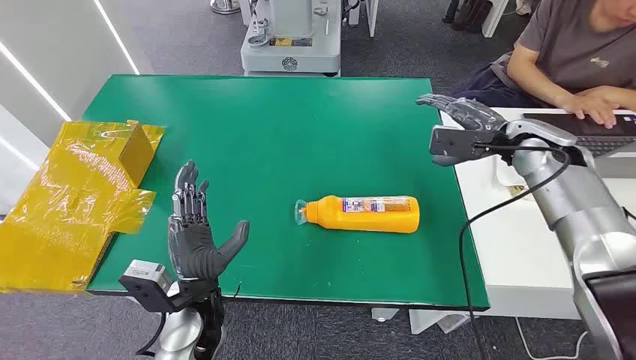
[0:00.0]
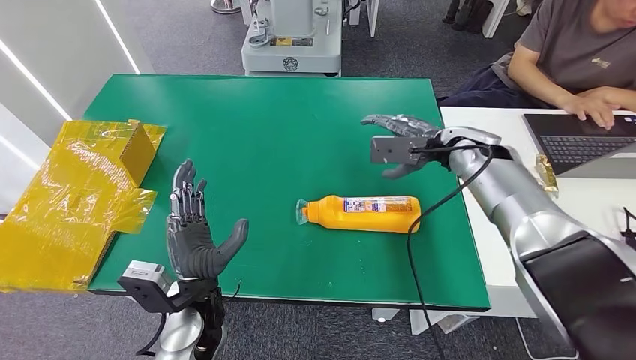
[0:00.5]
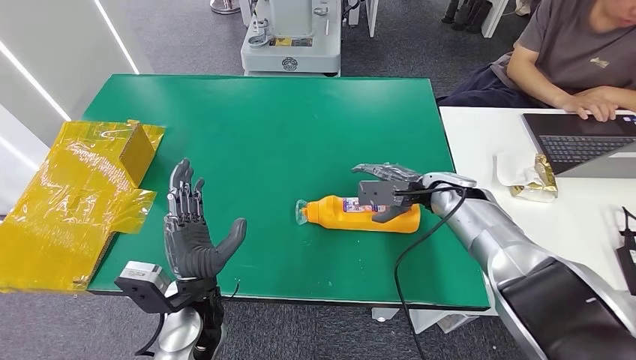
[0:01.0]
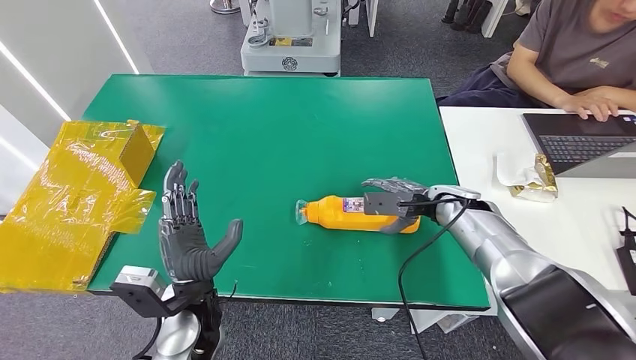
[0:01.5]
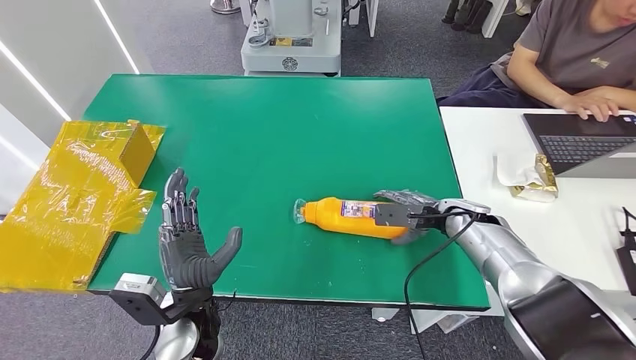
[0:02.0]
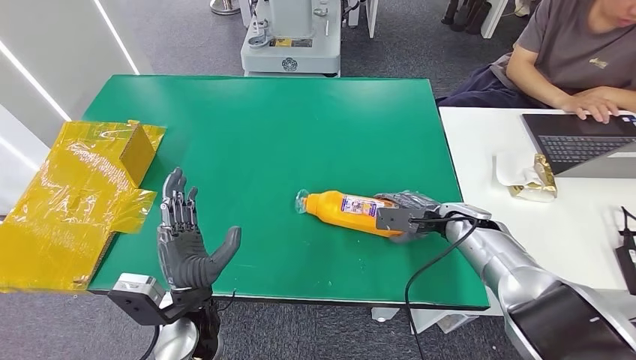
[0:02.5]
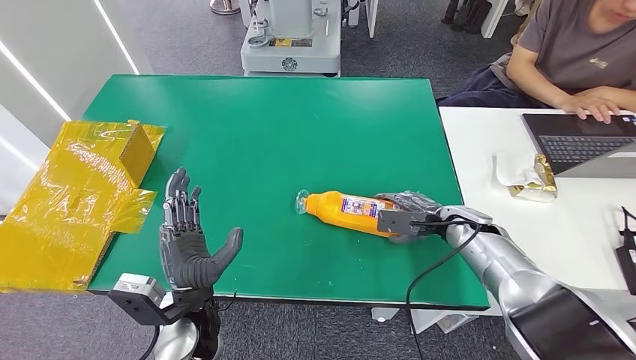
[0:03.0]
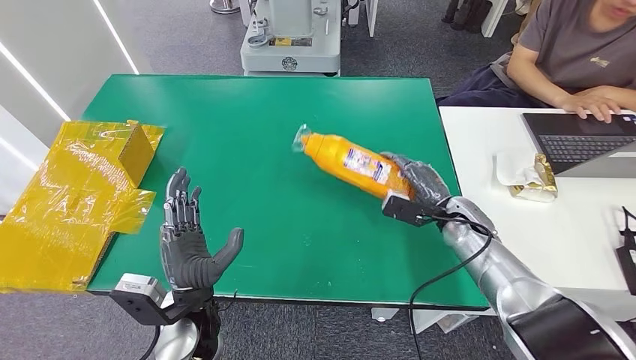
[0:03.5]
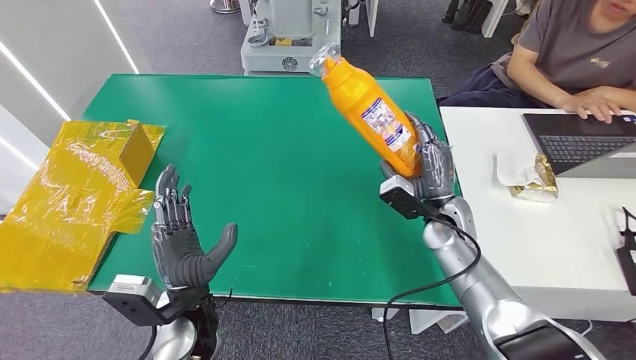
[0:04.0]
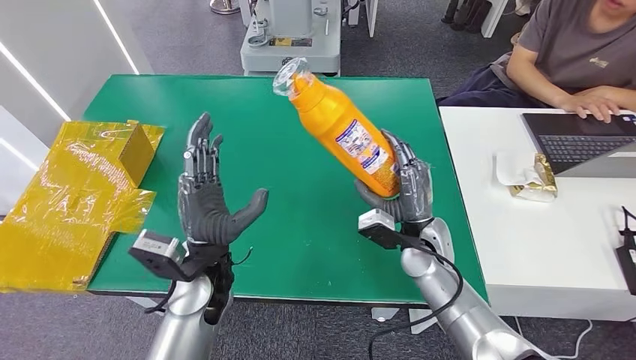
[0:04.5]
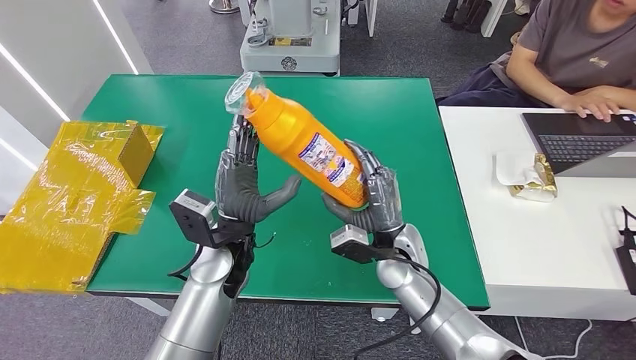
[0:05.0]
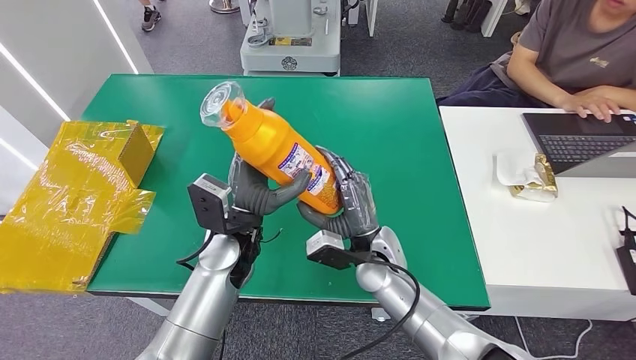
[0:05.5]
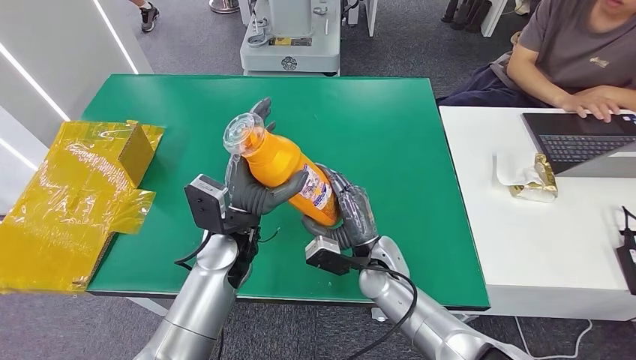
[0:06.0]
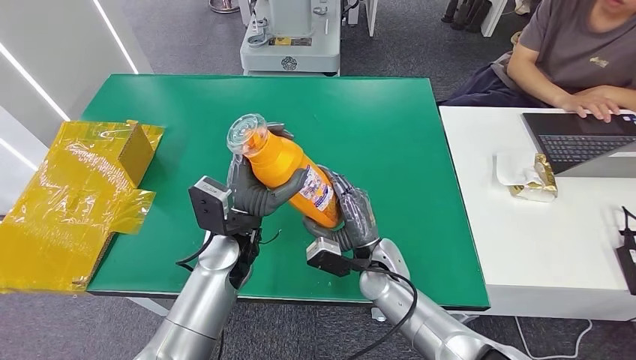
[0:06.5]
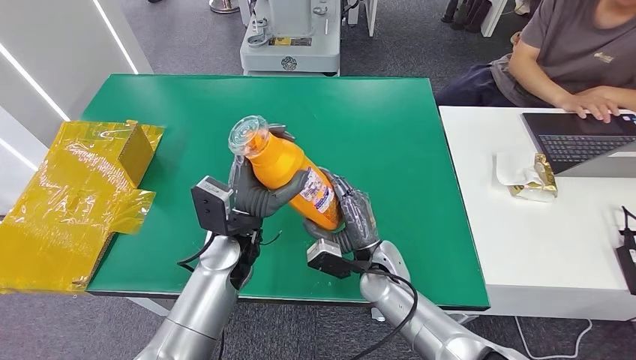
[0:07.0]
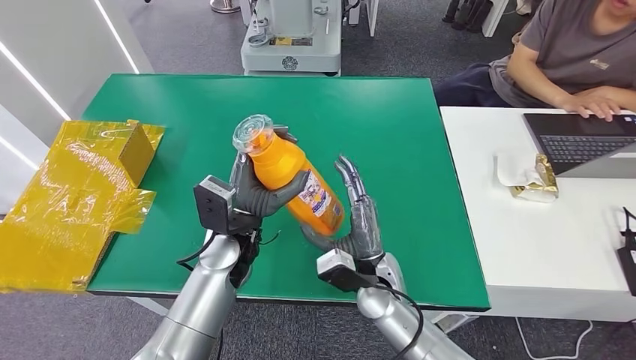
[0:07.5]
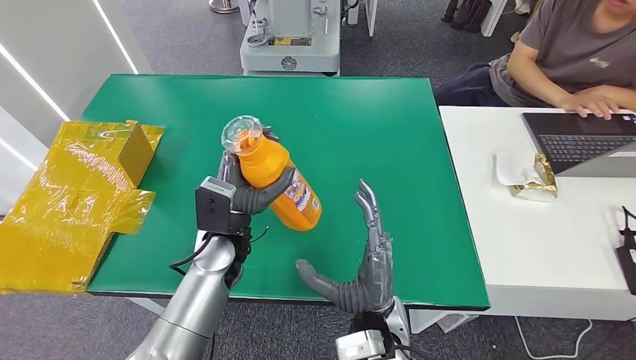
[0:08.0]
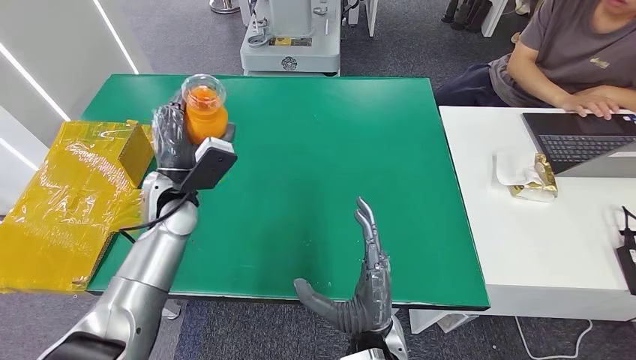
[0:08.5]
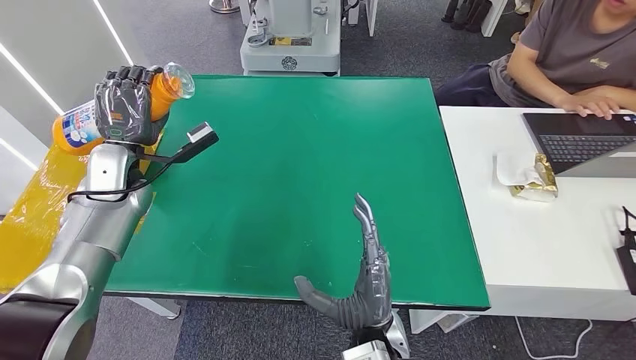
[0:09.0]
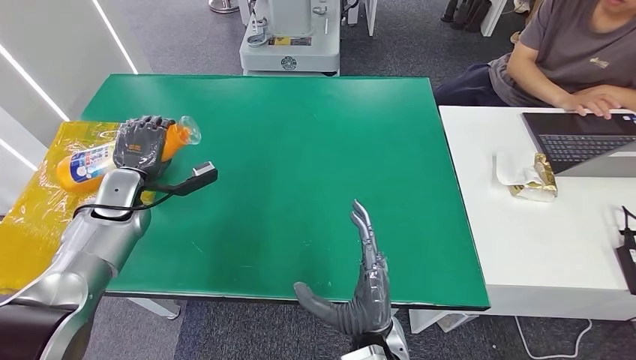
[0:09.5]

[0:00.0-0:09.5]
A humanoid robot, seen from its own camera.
Step, 0:00.0 to 0:03.5: Pick up the bottle from the table.
0:02.0 to 0:04.0: The right hand travels to the left by roughly 5 cm.
0:05.5 to 0:07.5: The hands make only small movements.

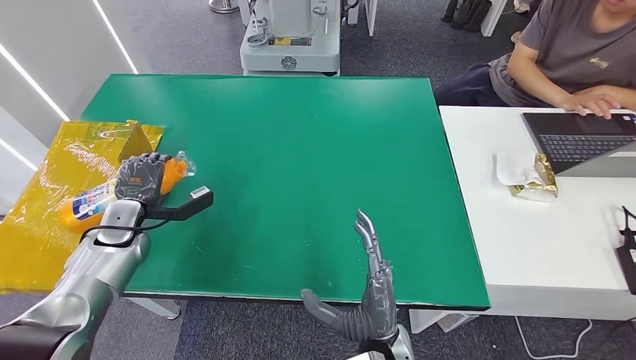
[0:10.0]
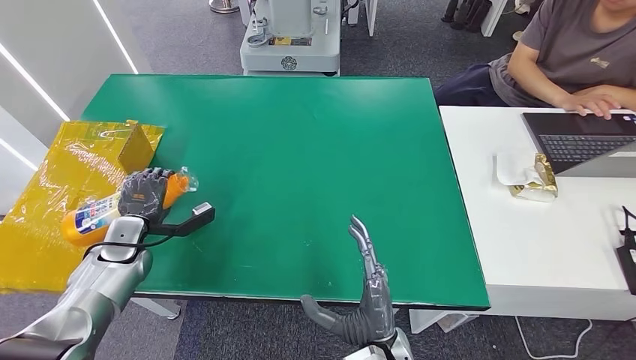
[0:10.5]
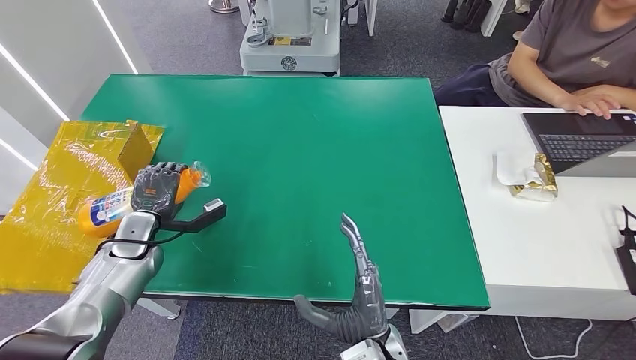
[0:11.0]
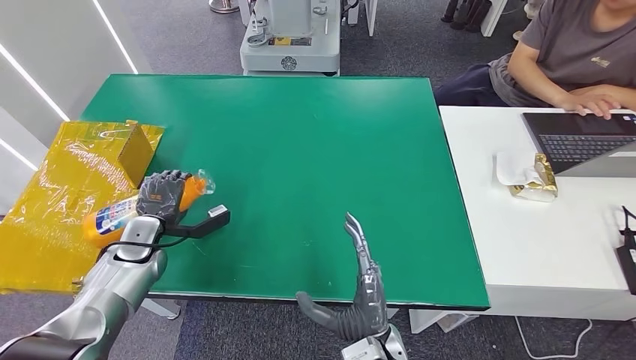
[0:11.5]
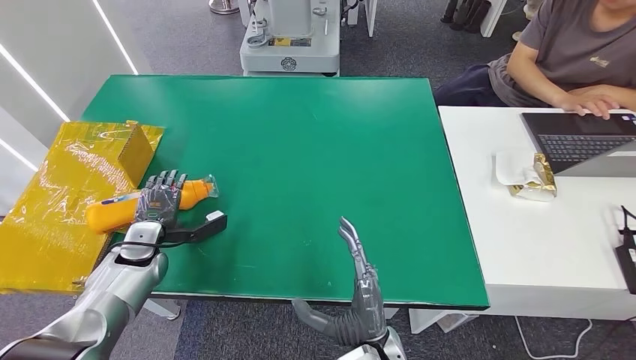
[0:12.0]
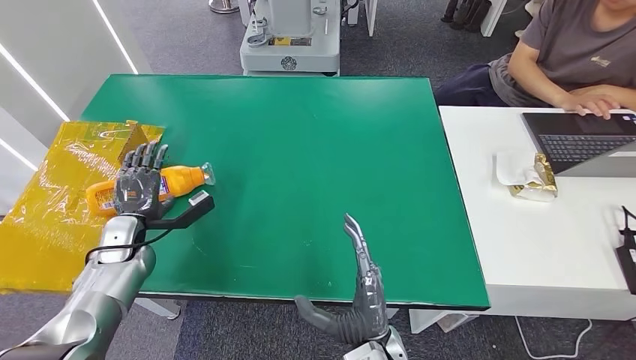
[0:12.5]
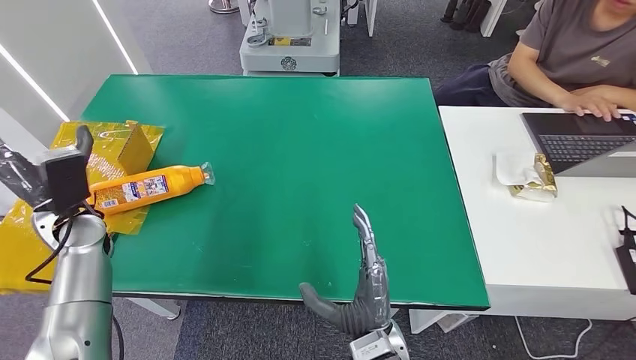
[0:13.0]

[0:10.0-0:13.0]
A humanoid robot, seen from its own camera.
Step, 0:10.0 to 0:13.0: Turn the bottle to the front side.
0:10.0 to 0:11.5: The hands move only a little.
0:11.5 to 0:13.0: The left hand goes some 10 cm upward.

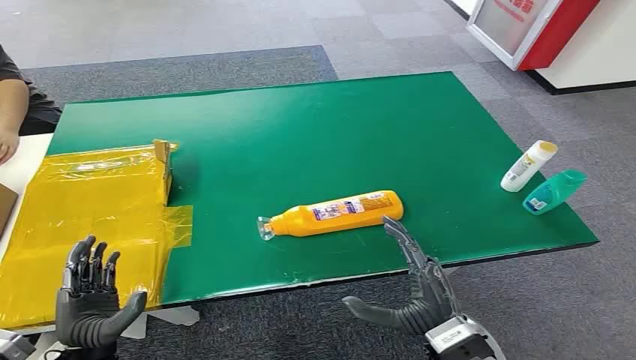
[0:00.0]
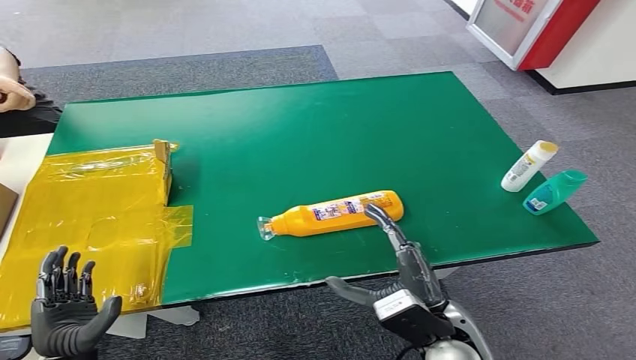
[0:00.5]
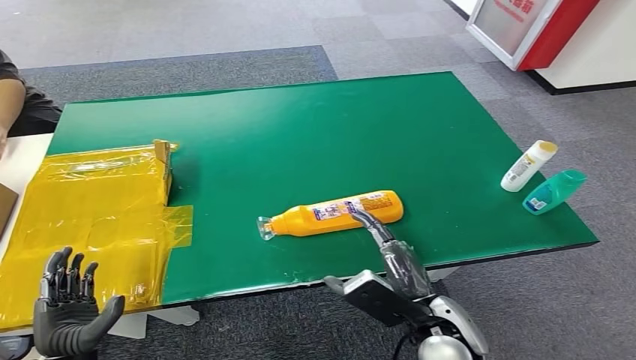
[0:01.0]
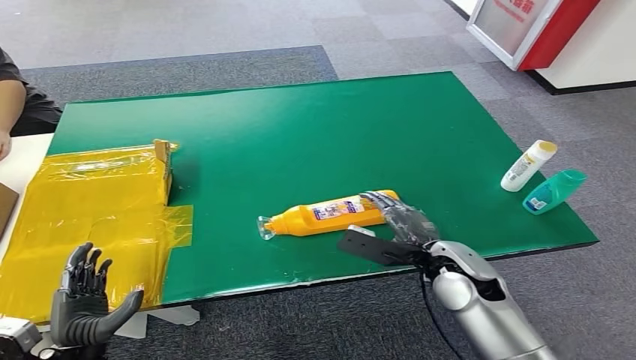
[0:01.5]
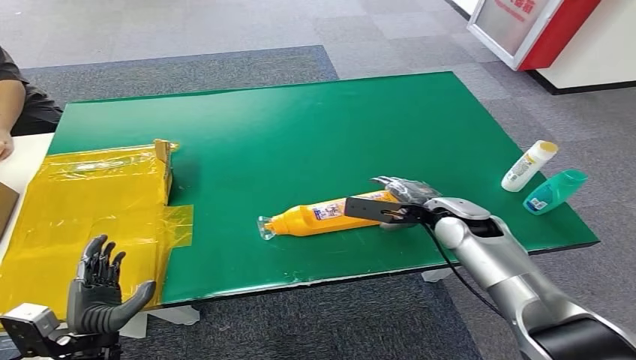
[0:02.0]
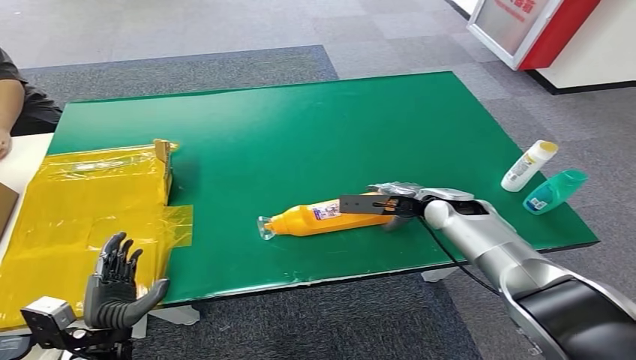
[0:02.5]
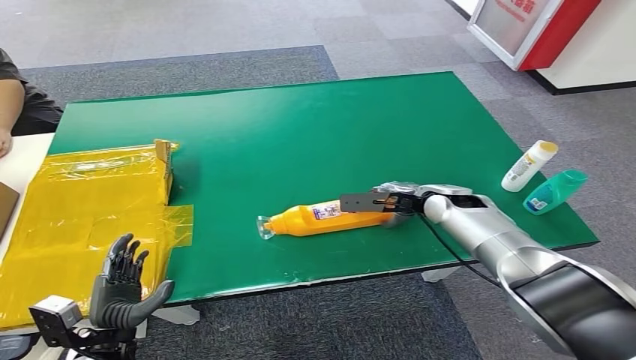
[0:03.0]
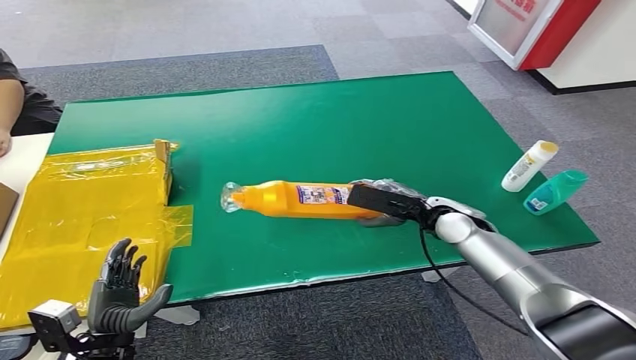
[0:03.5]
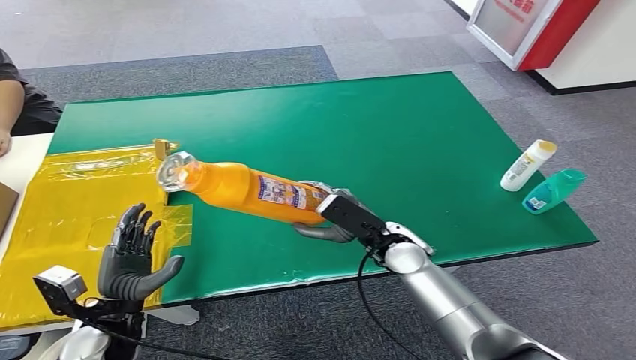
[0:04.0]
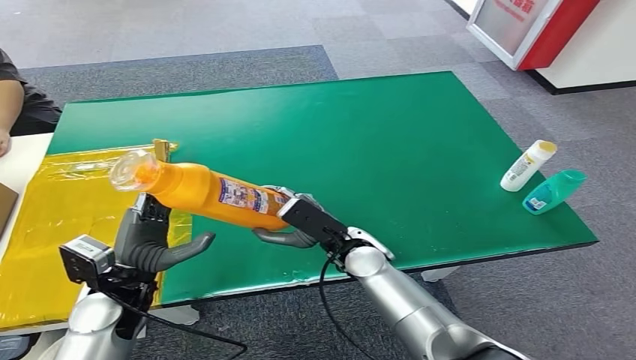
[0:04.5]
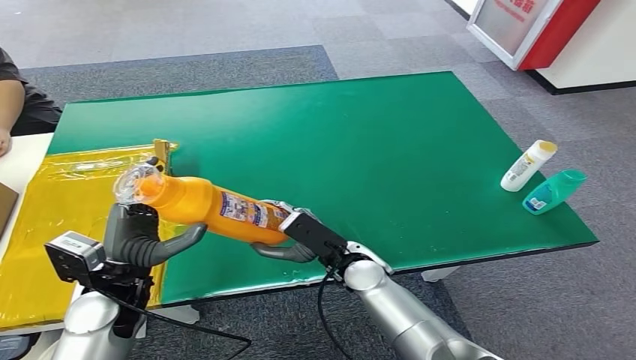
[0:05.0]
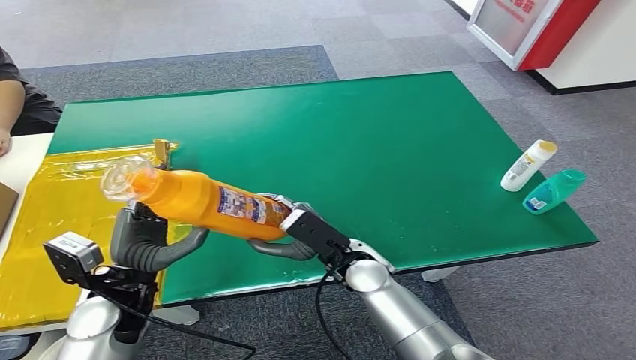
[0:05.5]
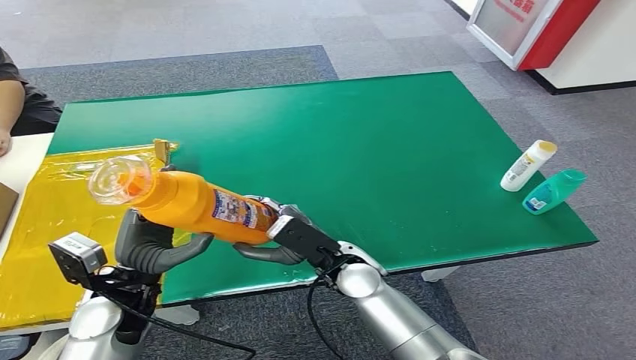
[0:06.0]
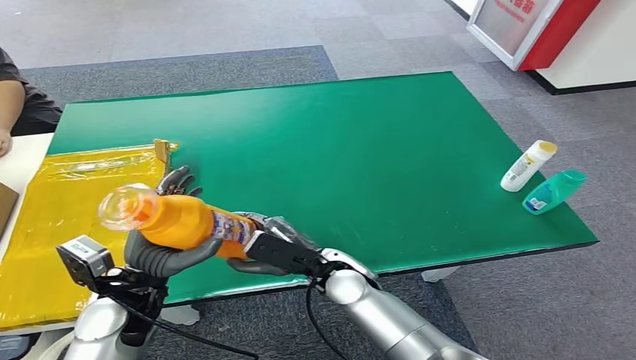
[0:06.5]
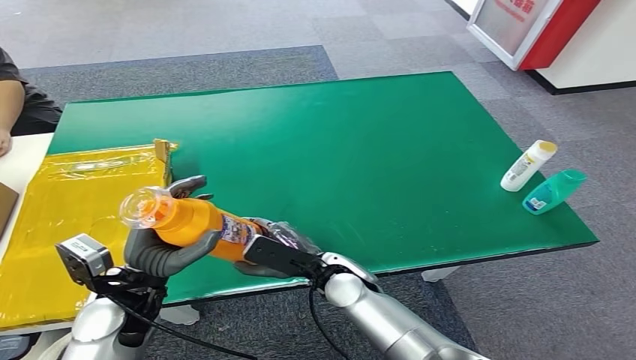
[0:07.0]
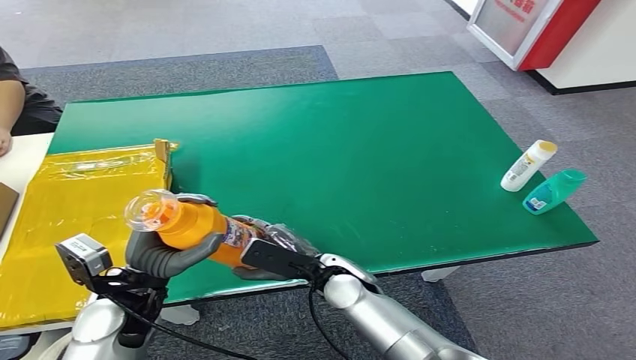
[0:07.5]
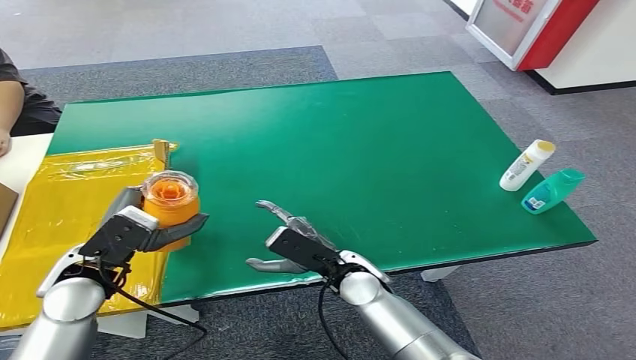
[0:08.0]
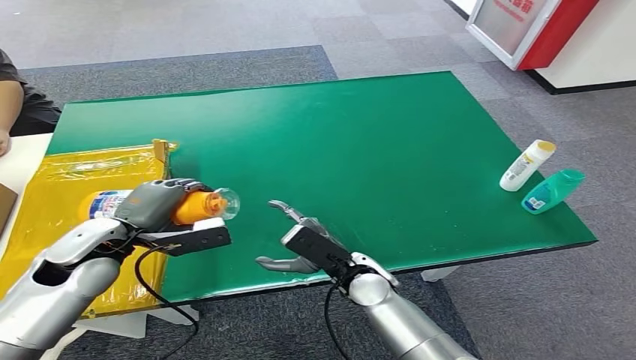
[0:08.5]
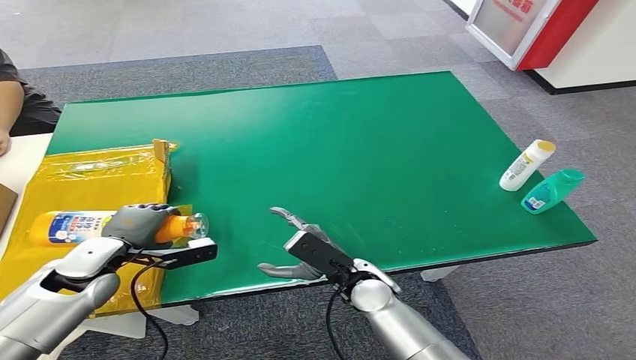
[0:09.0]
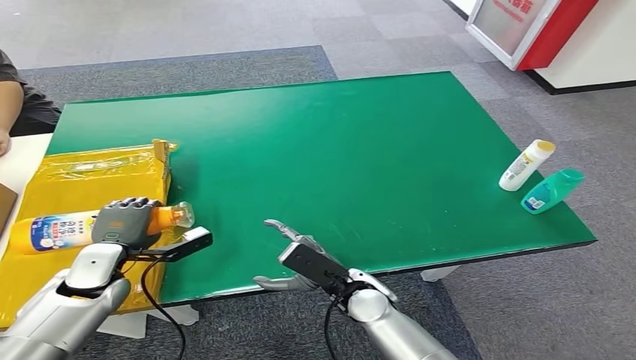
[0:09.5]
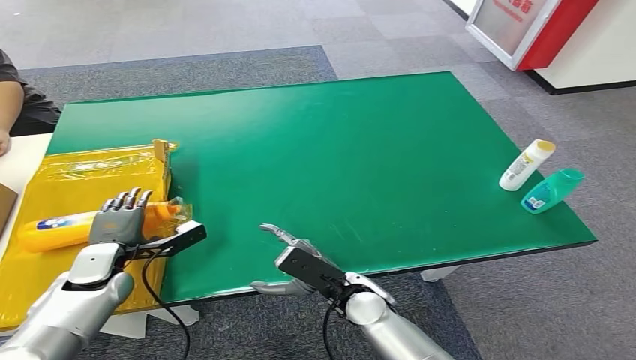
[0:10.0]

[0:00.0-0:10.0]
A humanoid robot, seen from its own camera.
Step, 0:00.0 to 0:03.5: Pick up the bottle from the table.
Step, 0:04.0 to 0:10.0: Turn the bottle to the front side.
0:04.0 to 0:06.0: The right hand travels to the left by approximately 10 cm; the left hand moves upward, about 10 cm.
0:06.0 to 0:08.0: The left hand changes place by roughly 5 cm.
0:08.0 to 0:10.0: The left hand moves downward and forward, about 10 cm.
